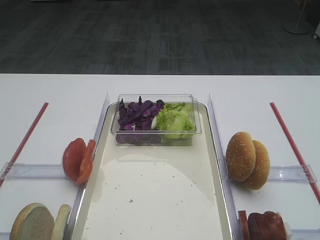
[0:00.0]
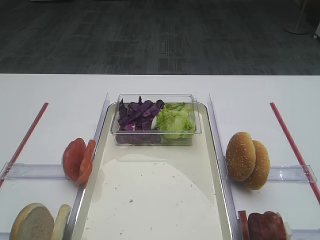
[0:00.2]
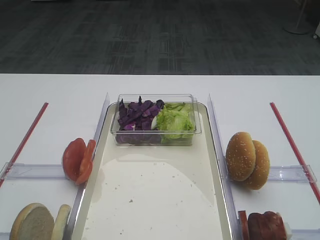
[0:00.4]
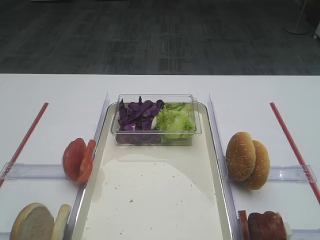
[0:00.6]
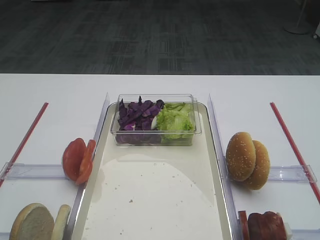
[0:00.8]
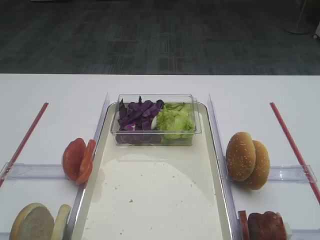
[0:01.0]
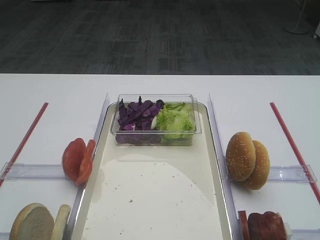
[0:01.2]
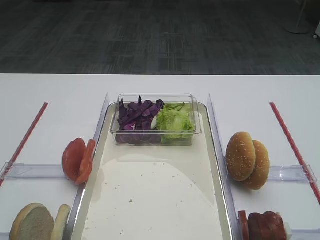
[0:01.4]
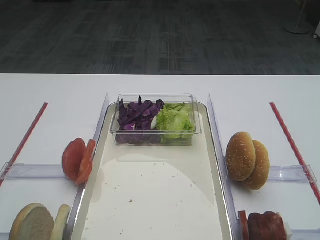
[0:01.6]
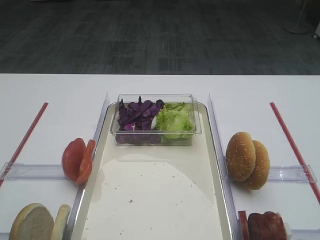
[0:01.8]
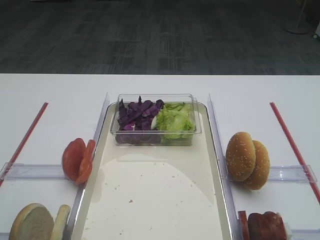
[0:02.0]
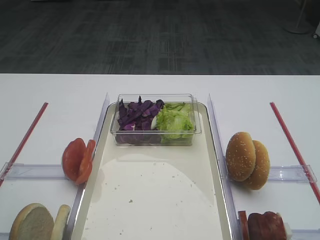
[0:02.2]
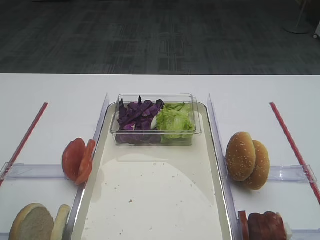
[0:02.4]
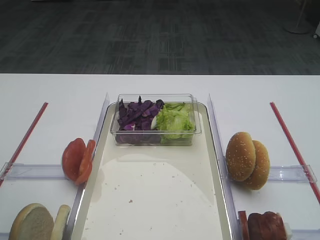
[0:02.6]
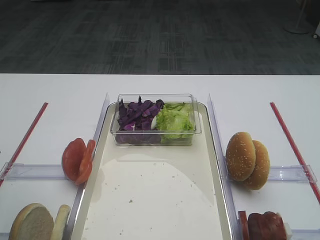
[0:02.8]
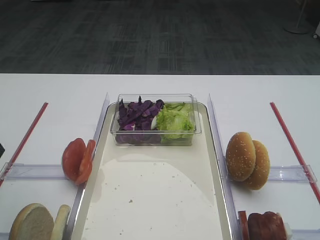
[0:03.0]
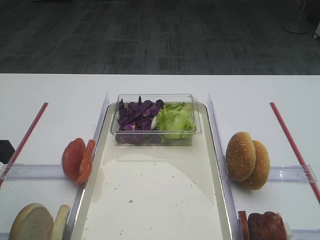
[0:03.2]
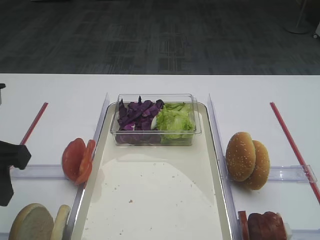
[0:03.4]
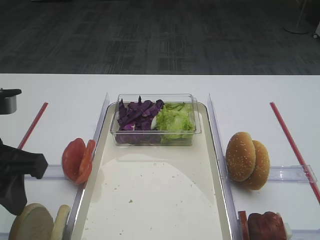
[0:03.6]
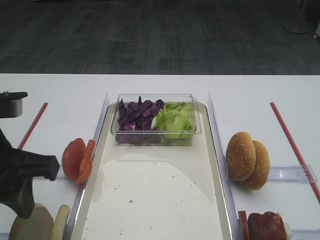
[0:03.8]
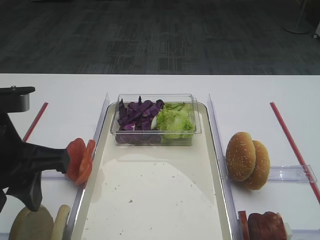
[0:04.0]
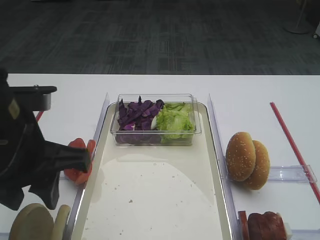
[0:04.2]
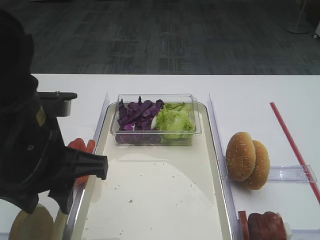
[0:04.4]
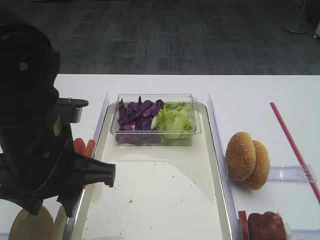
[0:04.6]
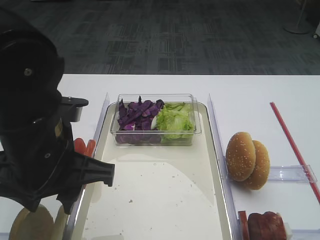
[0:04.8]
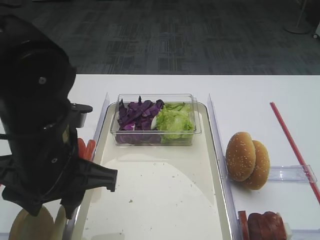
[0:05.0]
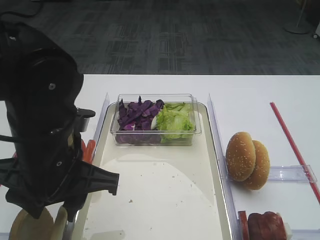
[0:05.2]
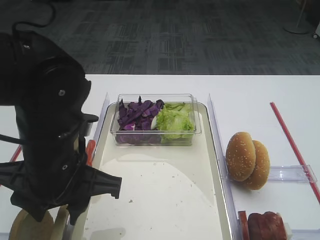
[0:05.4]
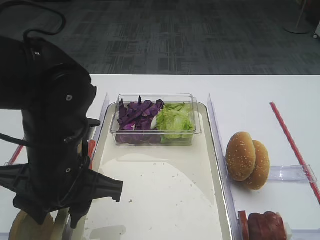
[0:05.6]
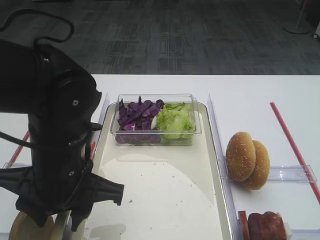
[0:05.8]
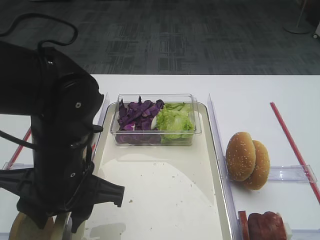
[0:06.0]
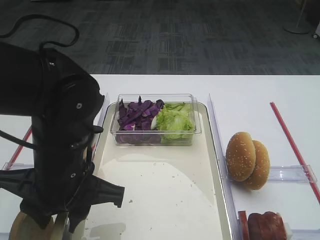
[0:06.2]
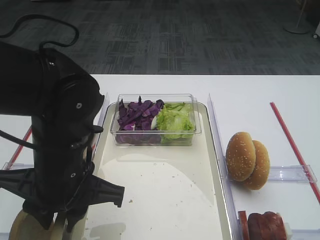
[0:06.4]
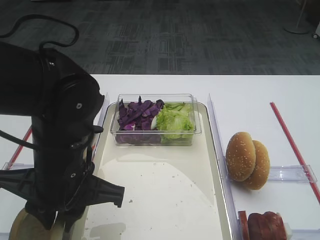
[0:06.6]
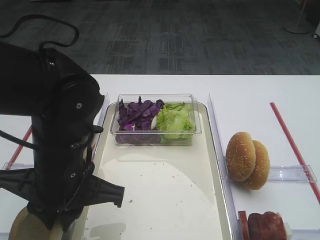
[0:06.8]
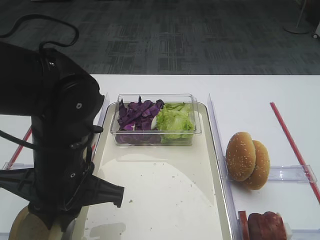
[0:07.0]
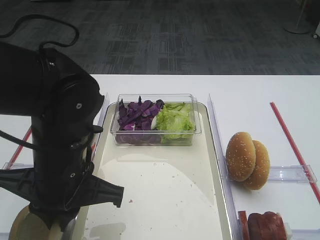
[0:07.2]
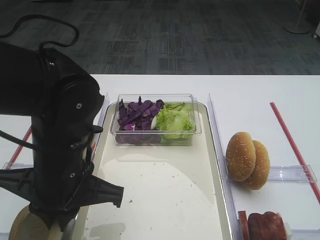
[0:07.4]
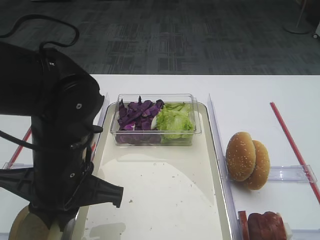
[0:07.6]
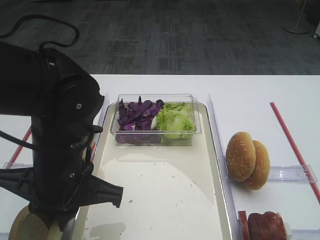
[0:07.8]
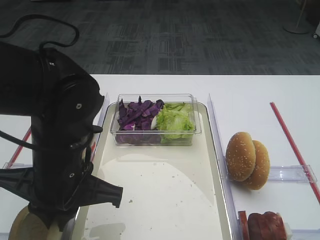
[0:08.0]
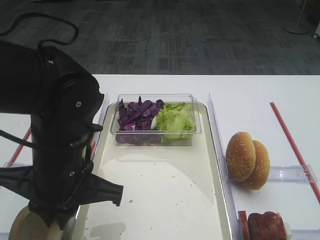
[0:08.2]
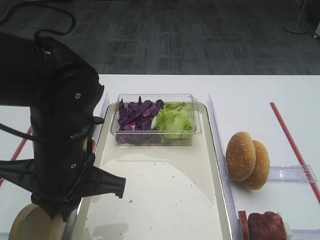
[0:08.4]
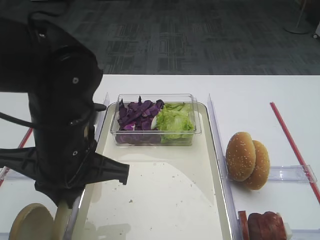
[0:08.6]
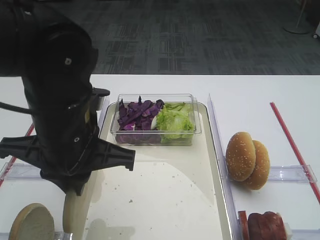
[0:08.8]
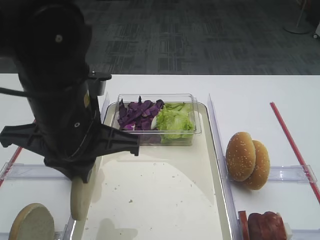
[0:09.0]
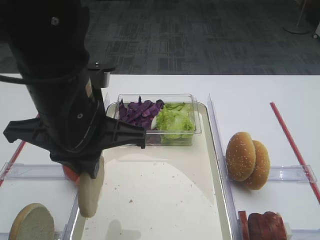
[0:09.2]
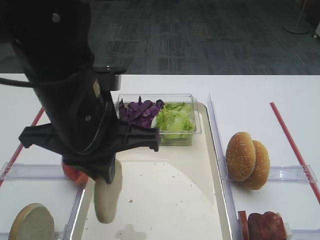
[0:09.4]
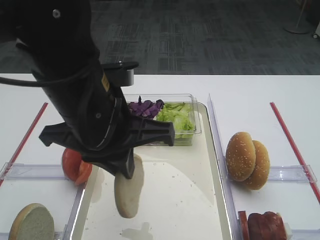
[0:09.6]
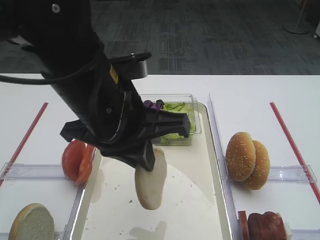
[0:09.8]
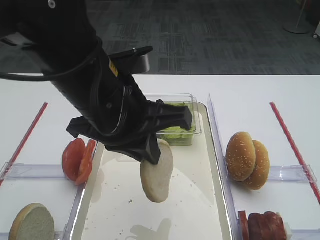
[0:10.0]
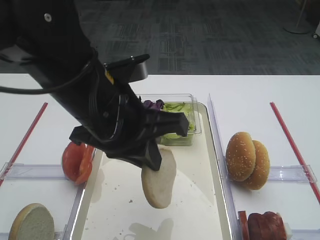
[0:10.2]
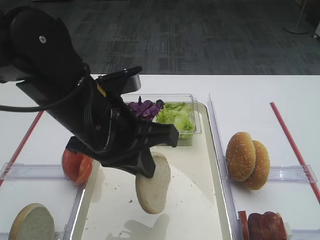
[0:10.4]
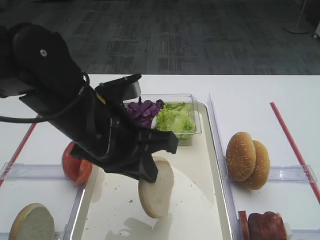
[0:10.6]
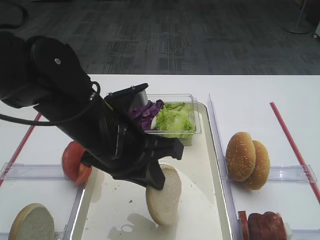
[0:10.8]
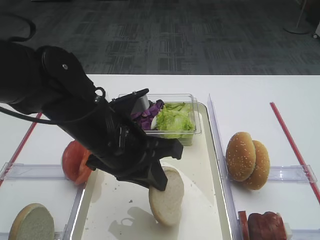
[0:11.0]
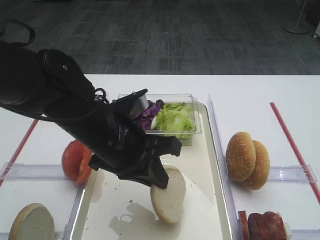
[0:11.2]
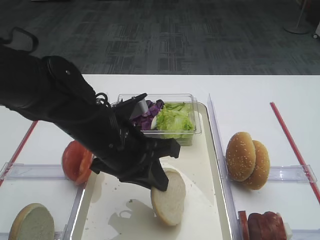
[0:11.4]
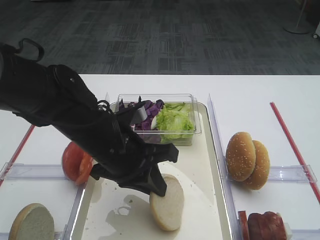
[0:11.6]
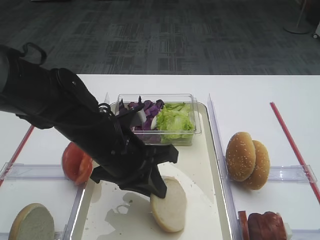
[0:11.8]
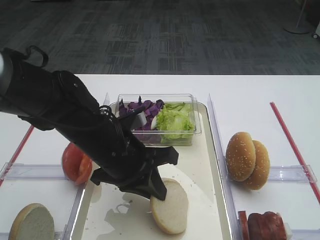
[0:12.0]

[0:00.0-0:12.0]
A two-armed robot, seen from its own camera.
Step, 0:00.0 to 0:08.8: Pick up the bread slice with the left gripper.
0:03.0 to 0:04.4: The left gripper travels to the right by about 15 cm.
0:04.4 to 0:06.0: The left gripper shifts roughly 5 cm downward.
0:06.0 to 0:07.6: The left gripper closes up.
0:07.6 to 0:09.0: The left gripper shifts about 5 cm upward.
0:10.4 to 0:12.0: The left gripper travels downward by about 10 cm.

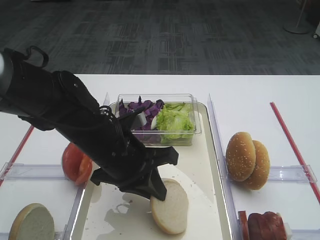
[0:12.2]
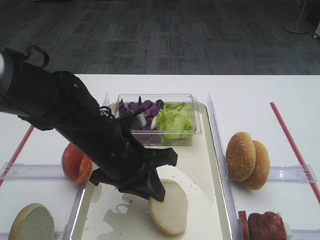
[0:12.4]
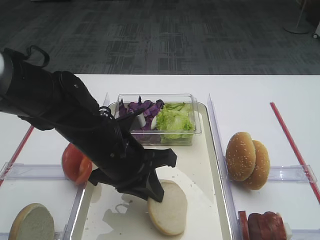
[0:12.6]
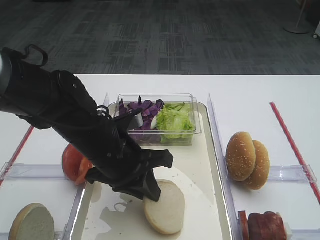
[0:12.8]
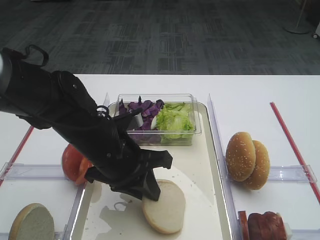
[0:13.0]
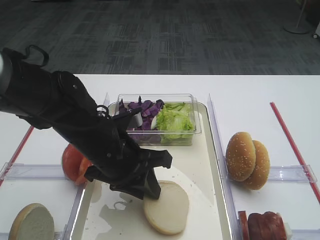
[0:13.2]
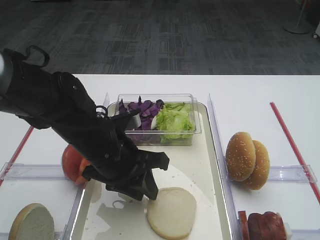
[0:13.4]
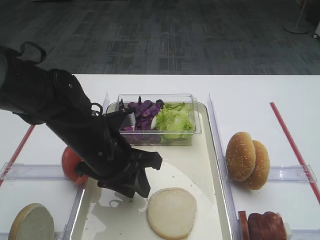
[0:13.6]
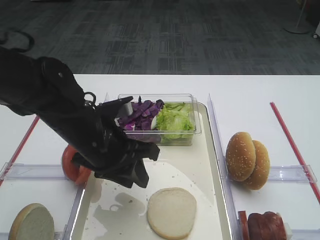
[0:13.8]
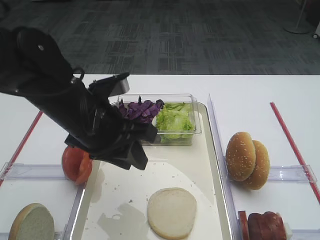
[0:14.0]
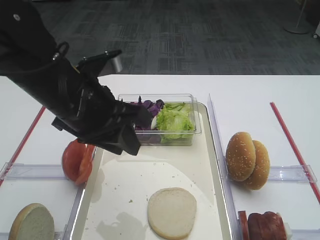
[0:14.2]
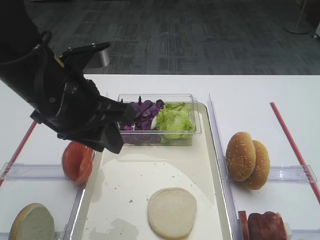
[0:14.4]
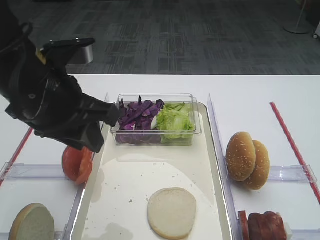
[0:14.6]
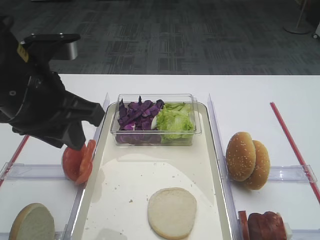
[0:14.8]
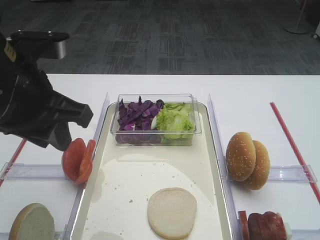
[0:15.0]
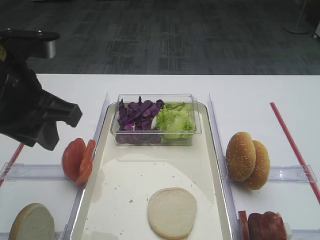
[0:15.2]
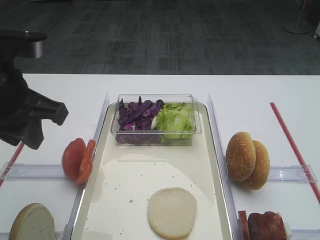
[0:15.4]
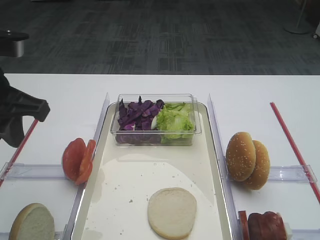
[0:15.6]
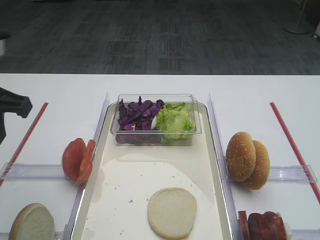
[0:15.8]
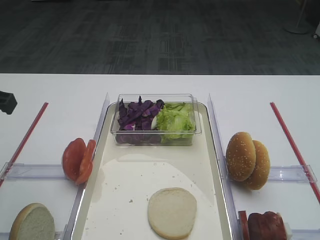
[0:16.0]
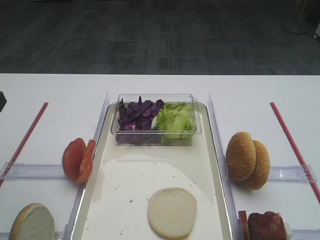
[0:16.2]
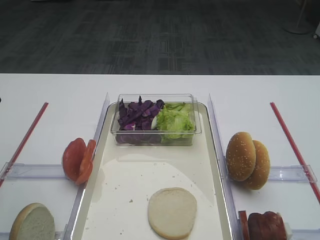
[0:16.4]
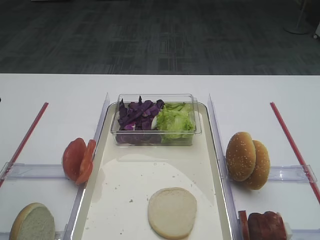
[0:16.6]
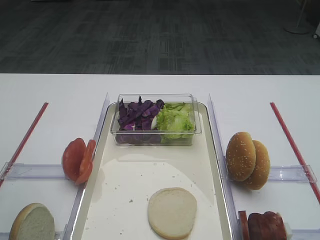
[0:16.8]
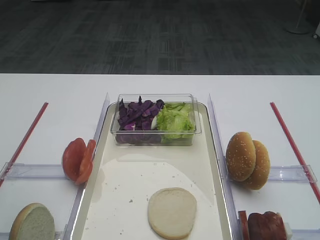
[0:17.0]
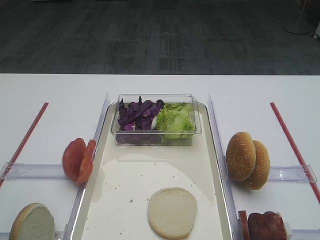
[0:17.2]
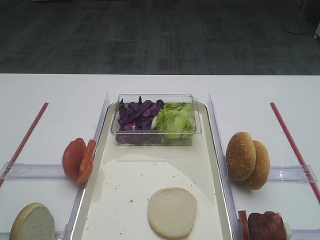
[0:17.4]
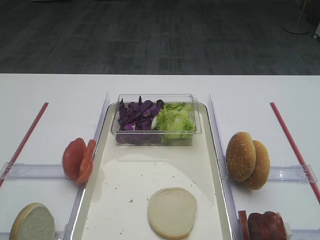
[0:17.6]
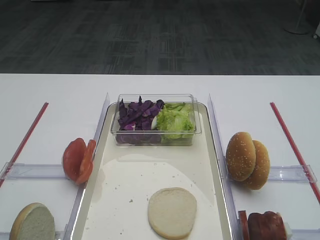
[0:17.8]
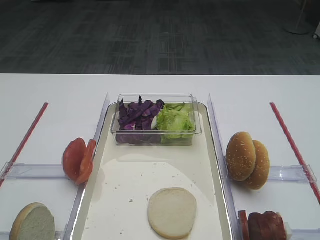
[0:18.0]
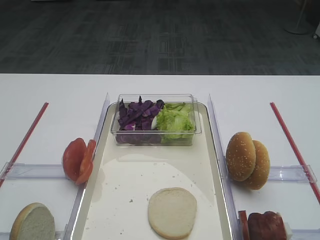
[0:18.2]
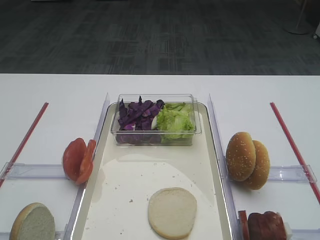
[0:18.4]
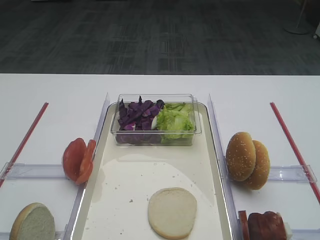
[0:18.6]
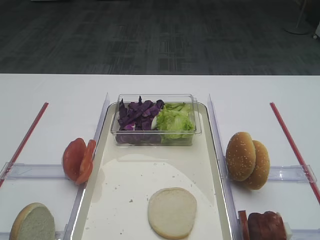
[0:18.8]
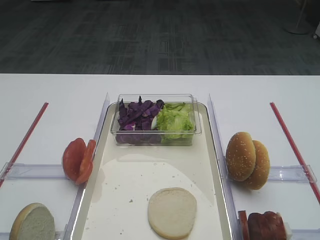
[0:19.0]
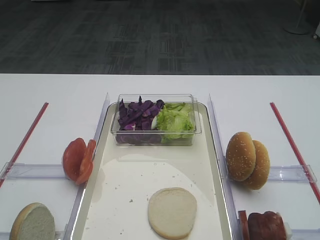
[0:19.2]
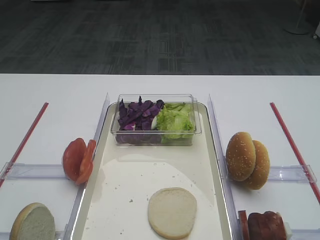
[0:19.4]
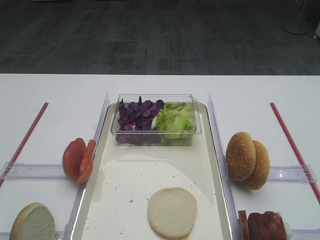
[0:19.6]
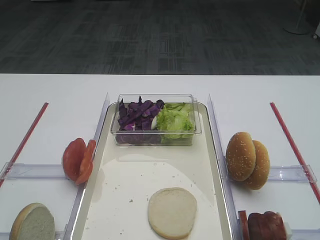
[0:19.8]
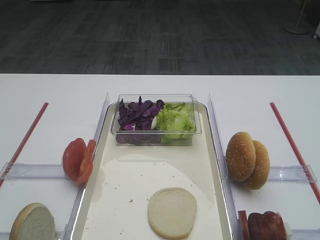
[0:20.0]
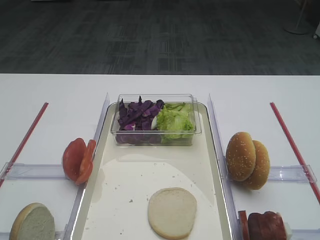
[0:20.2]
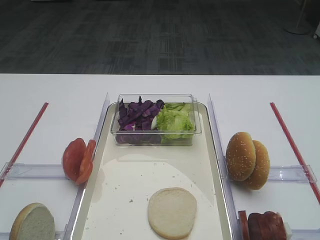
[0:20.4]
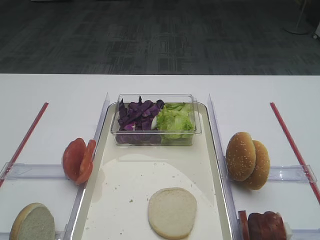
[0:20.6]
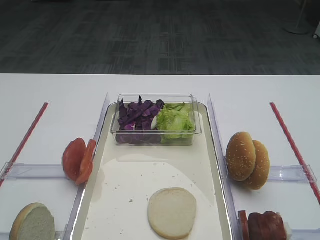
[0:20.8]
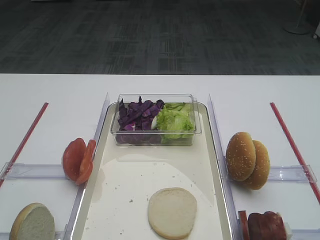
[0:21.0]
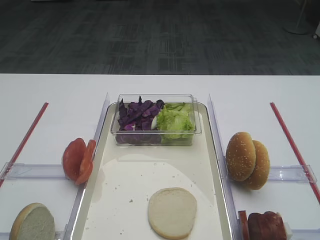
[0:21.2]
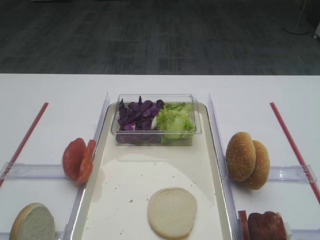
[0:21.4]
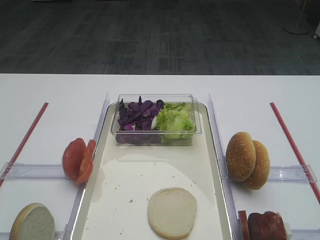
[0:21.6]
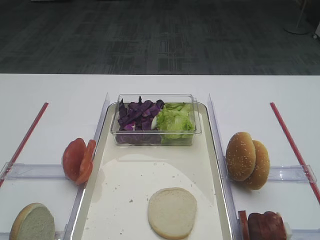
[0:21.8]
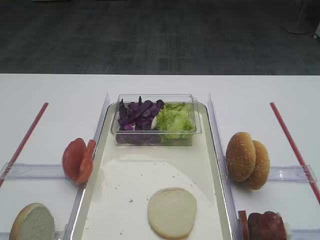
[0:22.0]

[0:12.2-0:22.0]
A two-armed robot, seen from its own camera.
0:12.2 to 0:13.6: The left gripper opens.
0:13.6 to 0:15.0: The left gripper is displaced upward and to the left by approximately 15 cm.
0:15.0 to 0:16.4: The left gripper heads to the left, covering some 10 cm.
0:19.2 to 0:22.0: Both grippers stay put.

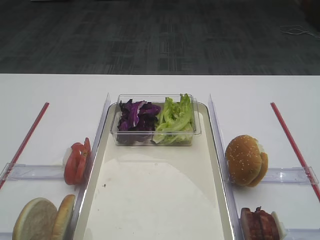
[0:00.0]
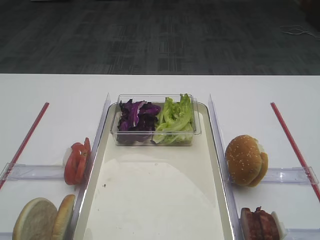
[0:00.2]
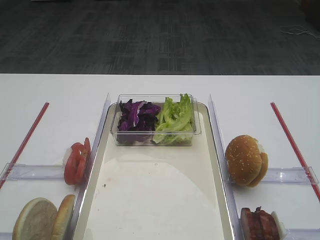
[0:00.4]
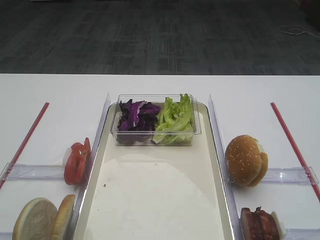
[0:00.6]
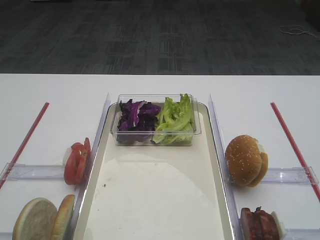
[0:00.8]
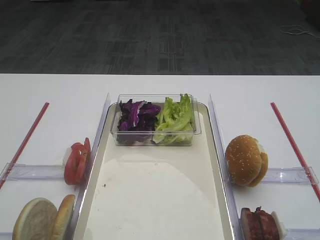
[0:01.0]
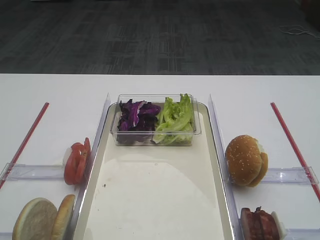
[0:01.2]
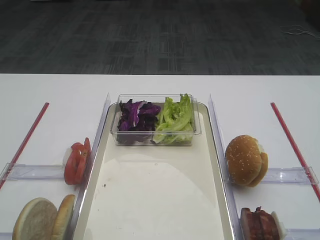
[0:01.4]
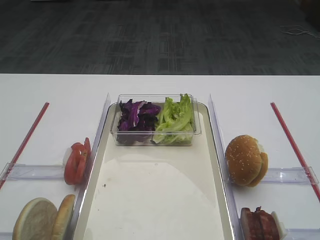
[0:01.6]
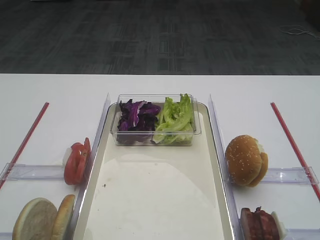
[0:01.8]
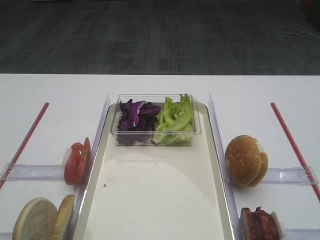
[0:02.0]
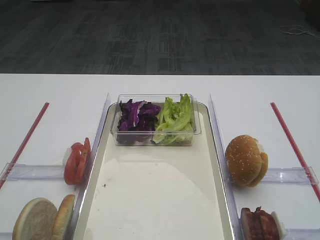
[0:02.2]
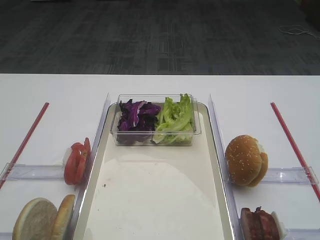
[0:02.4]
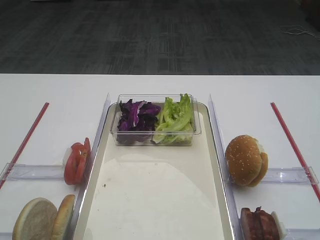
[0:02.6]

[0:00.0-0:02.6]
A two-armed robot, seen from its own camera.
0:01.2 to 0:02.6: Neither gripper changes place.
